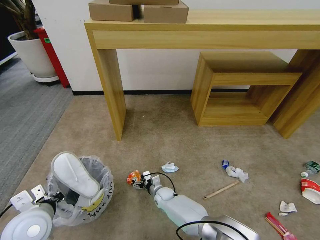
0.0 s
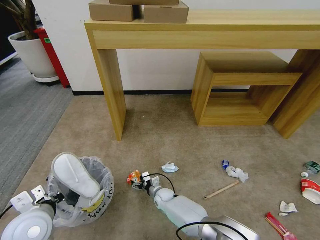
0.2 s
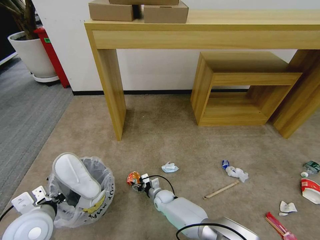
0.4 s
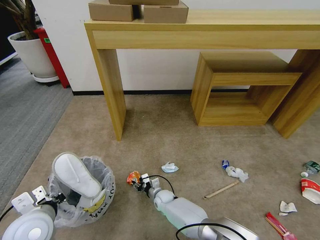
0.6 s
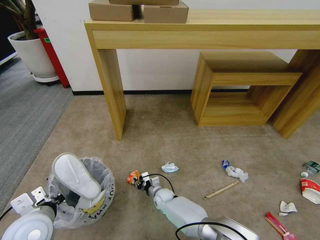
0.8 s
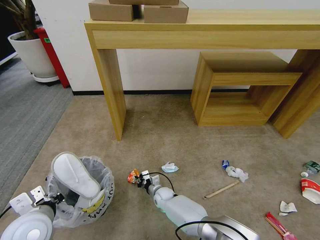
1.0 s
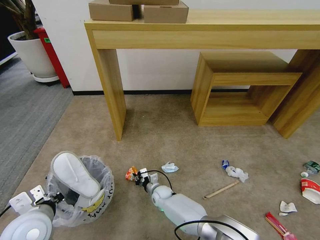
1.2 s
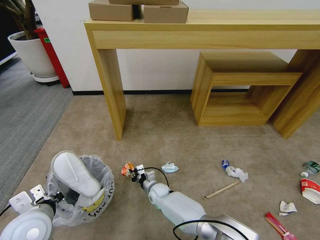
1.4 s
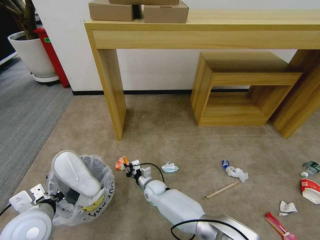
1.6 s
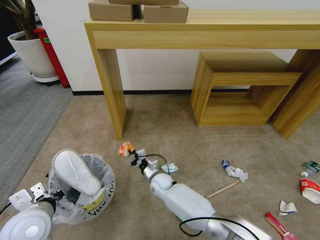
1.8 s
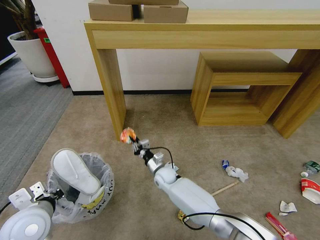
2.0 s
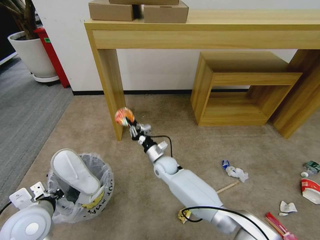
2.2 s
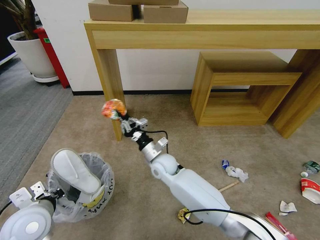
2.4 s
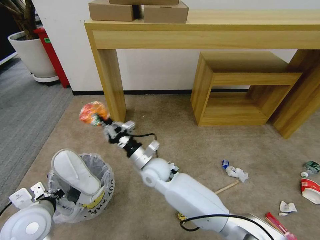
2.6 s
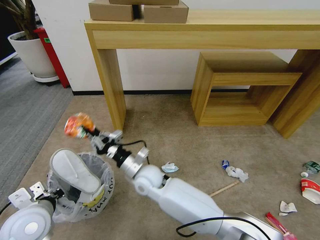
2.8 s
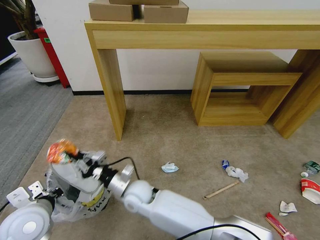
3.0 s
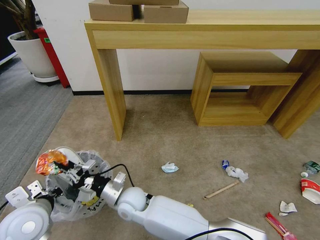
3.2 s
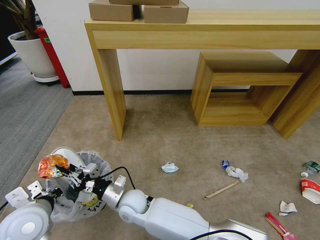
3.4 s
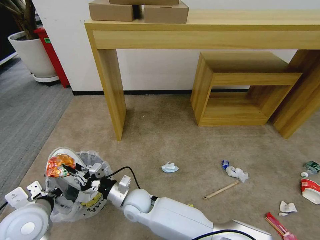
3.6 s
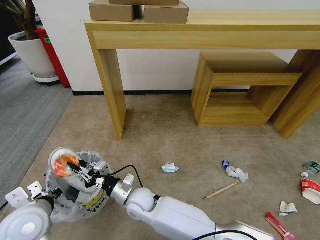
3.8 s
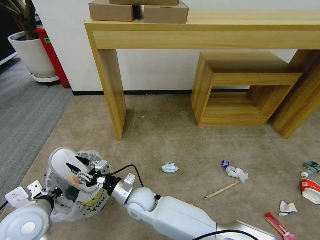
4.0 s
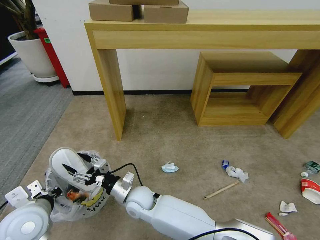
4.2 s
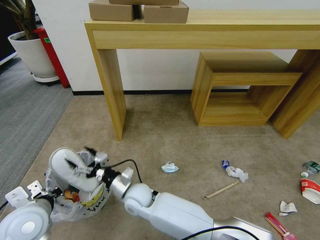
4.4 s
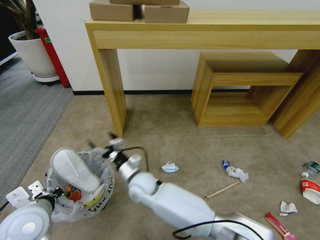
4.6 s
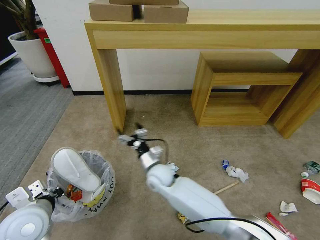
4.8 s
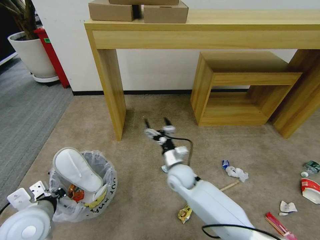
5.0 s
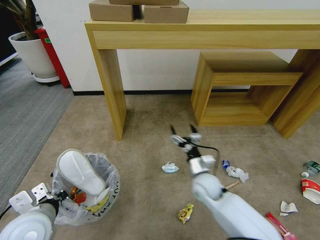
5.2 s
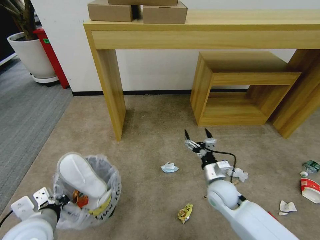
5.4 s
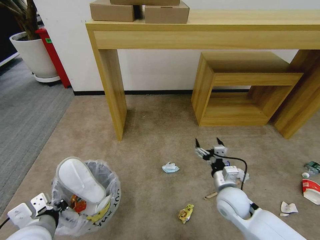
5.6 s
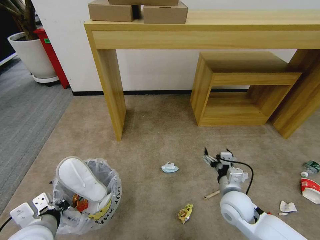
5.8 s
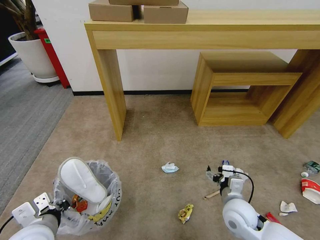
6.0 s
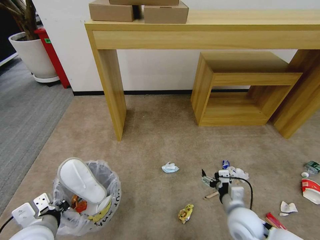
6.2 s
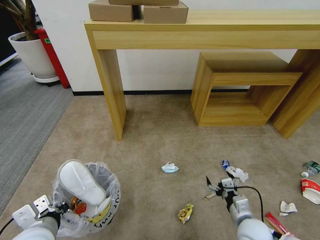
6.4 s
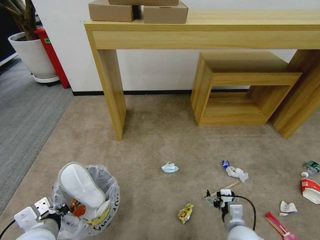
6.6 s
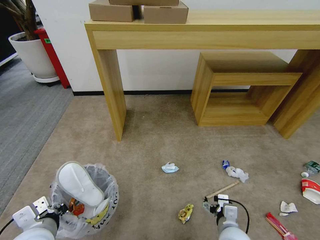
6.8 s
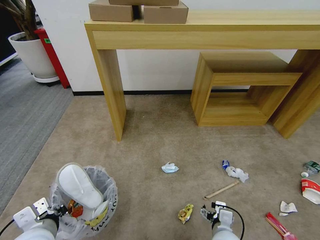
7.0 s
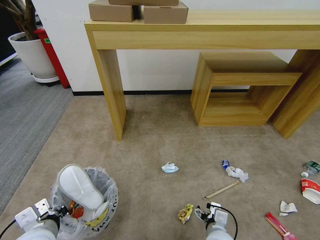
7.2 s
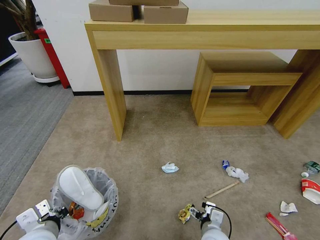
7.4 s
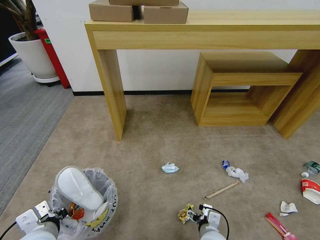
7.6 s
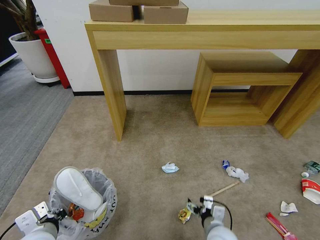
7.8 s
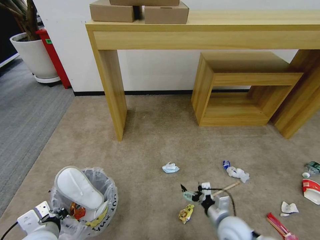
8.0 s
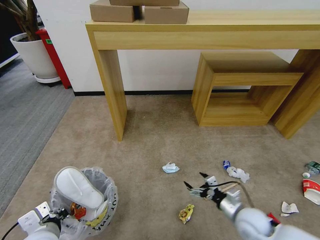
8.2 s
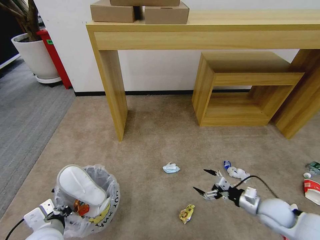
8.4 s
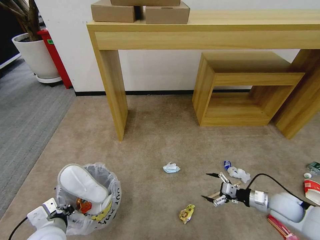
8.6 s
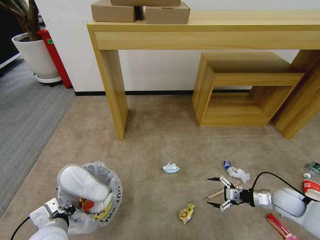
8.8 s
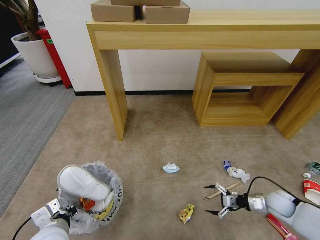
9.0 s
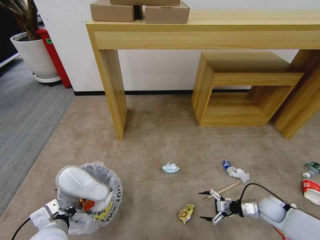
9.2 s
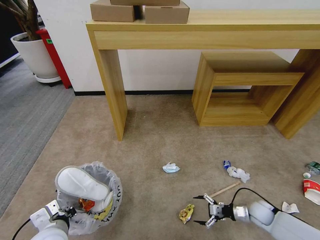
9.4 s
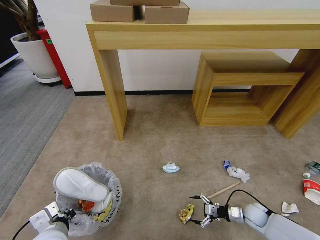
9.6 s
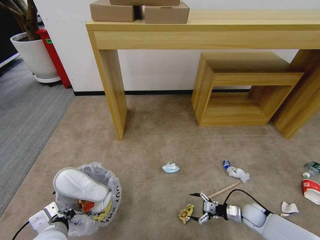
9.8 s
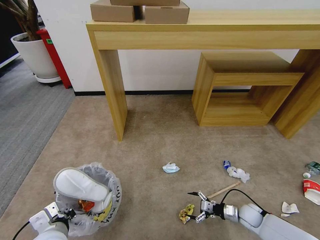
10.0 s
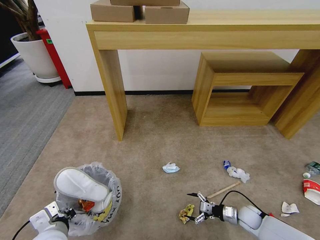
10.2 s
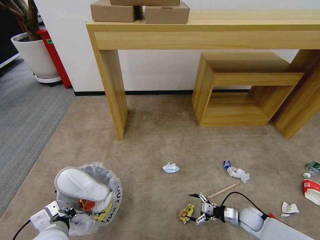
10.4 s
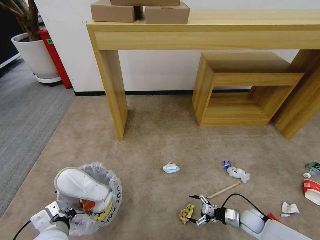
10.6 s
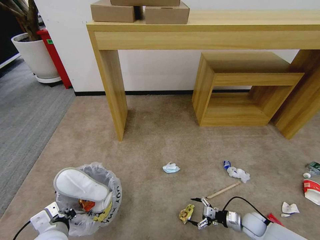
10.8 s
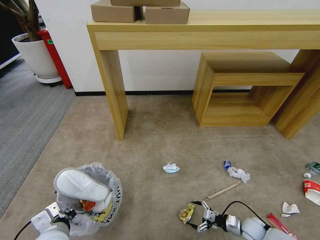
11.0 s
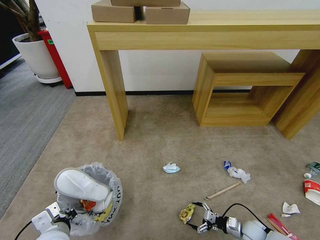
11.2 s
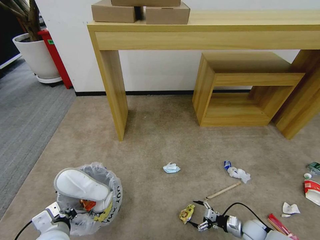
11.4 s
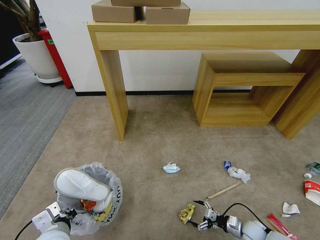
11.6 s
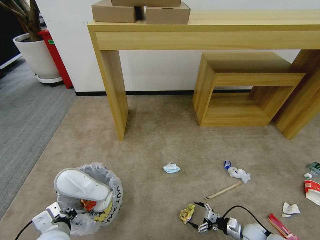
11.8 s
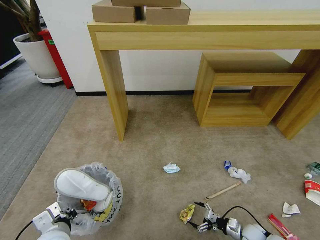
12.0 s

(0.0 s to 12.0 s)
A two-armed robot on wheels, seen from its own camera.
Task of the whole recording: Pick up the trash bin and place the garbage on the floor into it.
0.0 s - 1.6 s: The right gripper moves upward, roughly 5 cm, and closes its fingers.
1.6 s - 3.0 s: The right gripper moves upward and backward, about 15 cm.
3.0 s - 4.4 s: The right gripper opens.
4.4 s - 6.0 s: The right gripper is displaced to the right by some 30 cm, while the left gripper changes place by approximately 5 cm.
6.0 s - 7.6 s: The right gripper is displaced downward, backward and to the left by some 15 cm.
7.6 s - 9.0 s: The right gripper goes about 30 cm to the right and forward.
9.0 s - 10.4 s: The right gripper is displaced downward and to the left by approximately 15 cm.
10.4 s - 12.0 s: The right gripper shifts roughly 5 cm backward.

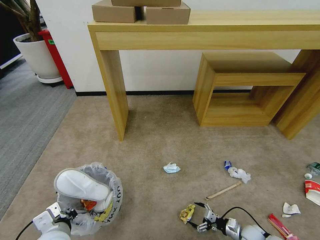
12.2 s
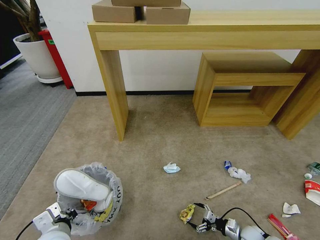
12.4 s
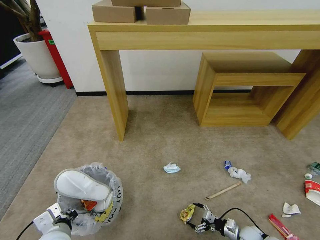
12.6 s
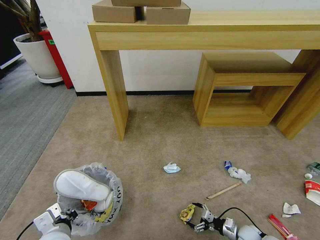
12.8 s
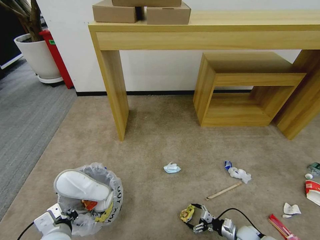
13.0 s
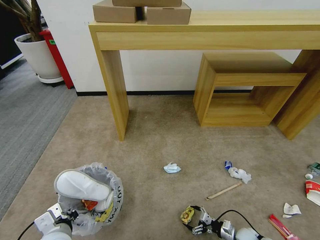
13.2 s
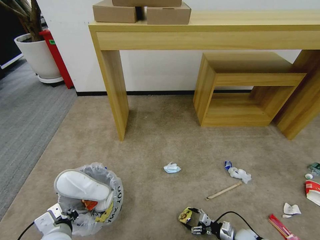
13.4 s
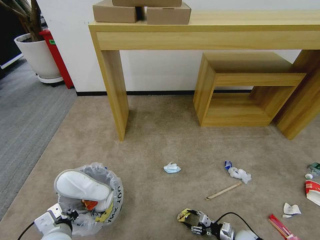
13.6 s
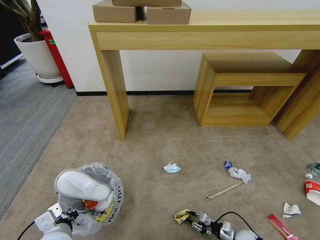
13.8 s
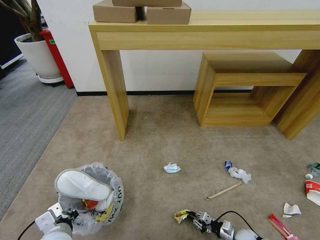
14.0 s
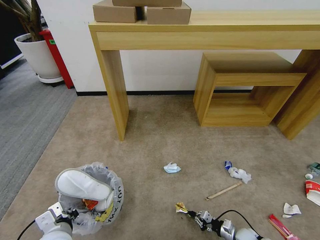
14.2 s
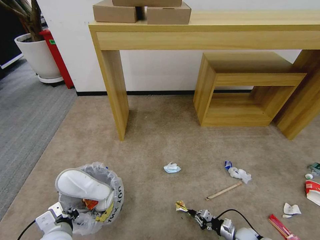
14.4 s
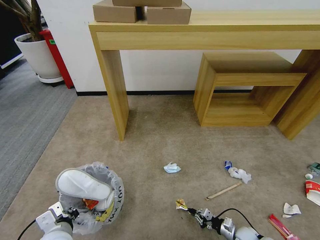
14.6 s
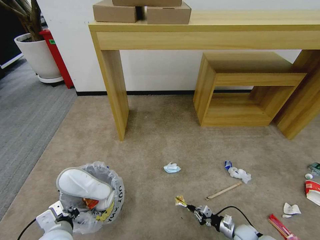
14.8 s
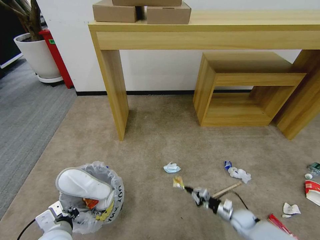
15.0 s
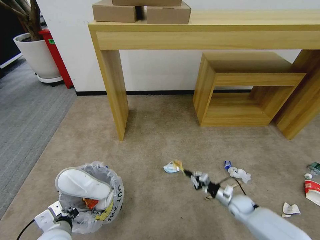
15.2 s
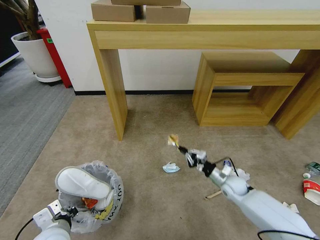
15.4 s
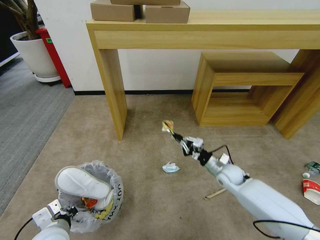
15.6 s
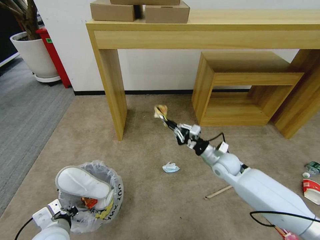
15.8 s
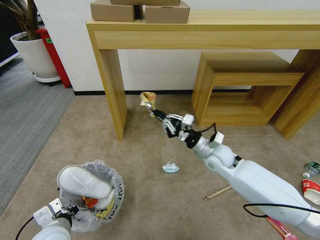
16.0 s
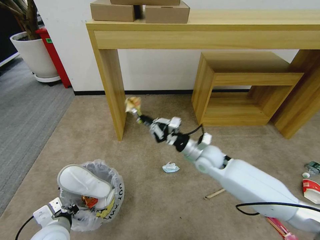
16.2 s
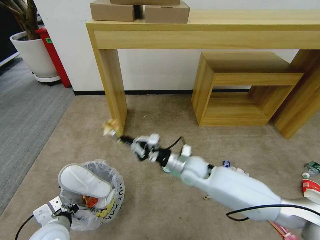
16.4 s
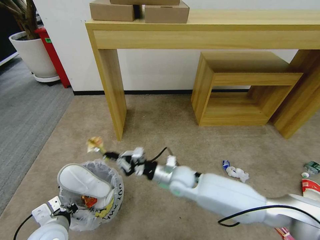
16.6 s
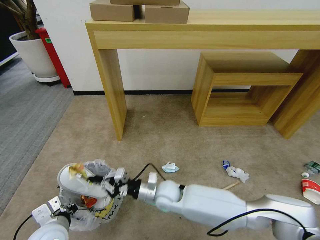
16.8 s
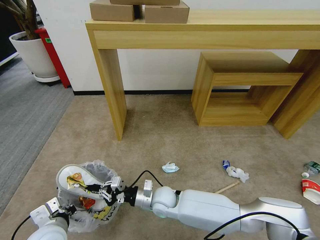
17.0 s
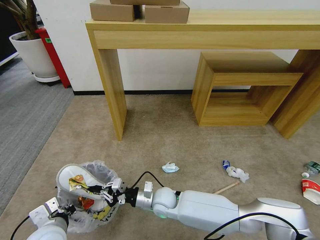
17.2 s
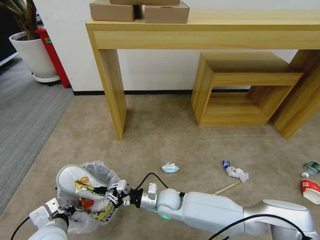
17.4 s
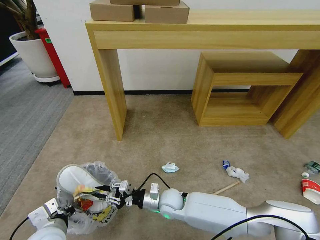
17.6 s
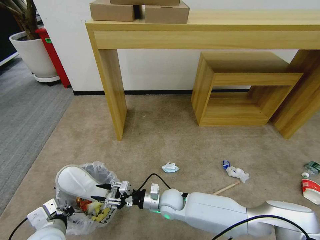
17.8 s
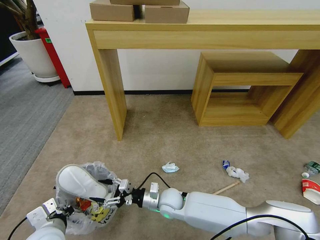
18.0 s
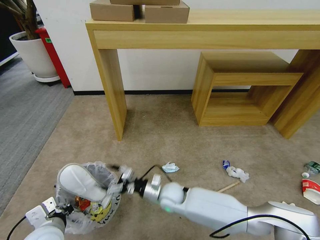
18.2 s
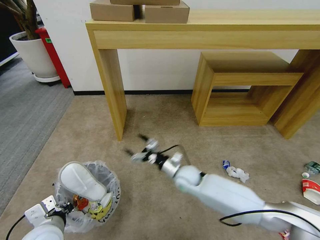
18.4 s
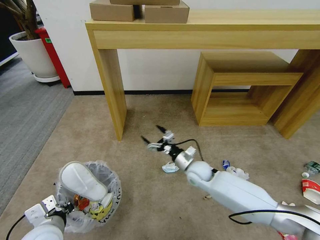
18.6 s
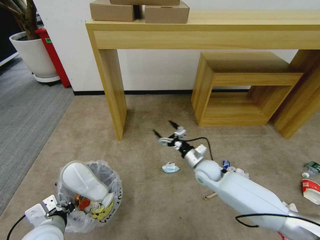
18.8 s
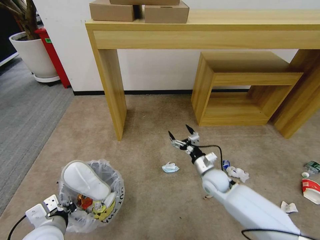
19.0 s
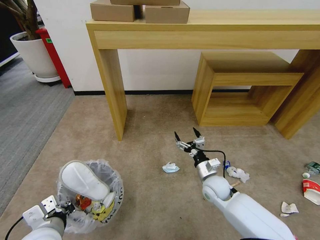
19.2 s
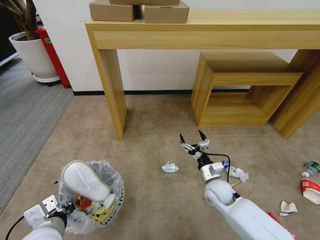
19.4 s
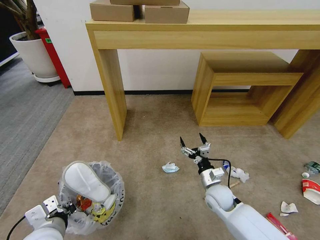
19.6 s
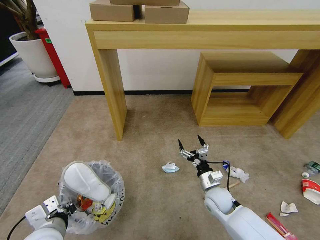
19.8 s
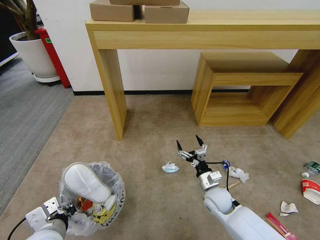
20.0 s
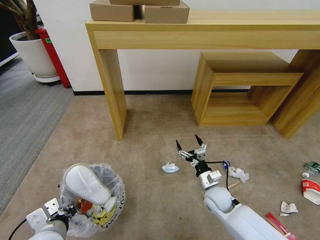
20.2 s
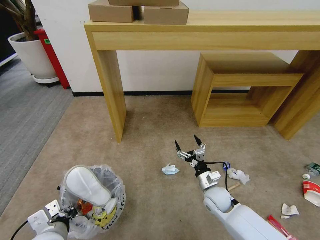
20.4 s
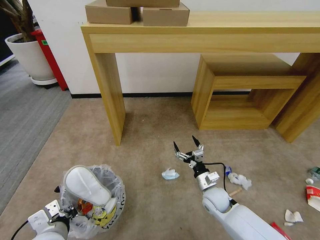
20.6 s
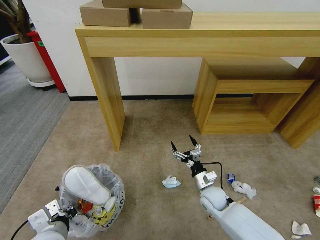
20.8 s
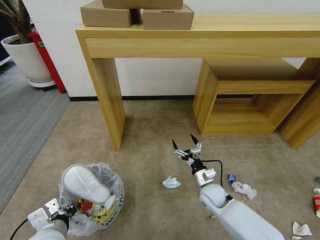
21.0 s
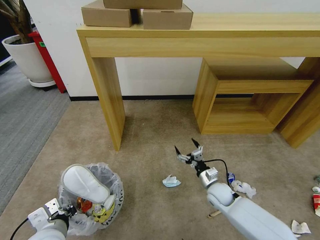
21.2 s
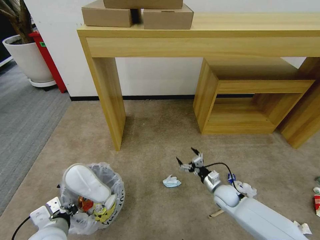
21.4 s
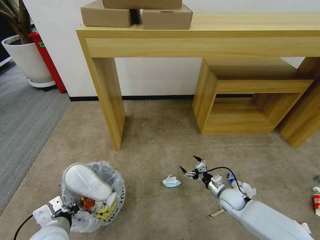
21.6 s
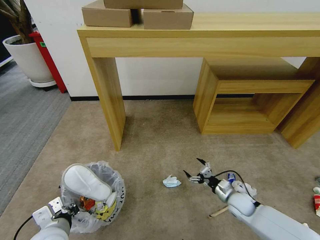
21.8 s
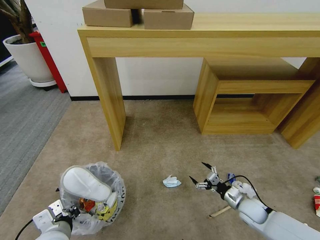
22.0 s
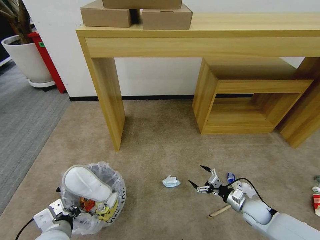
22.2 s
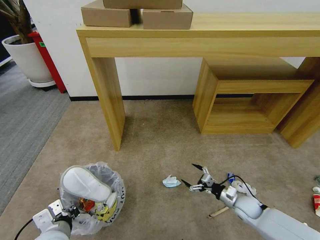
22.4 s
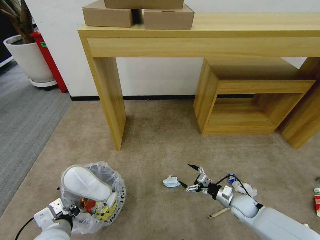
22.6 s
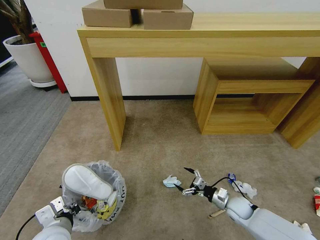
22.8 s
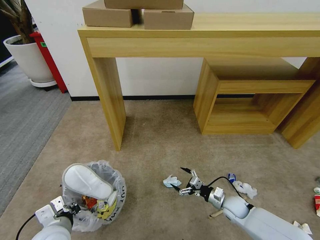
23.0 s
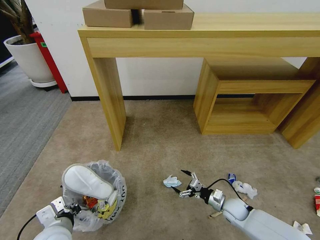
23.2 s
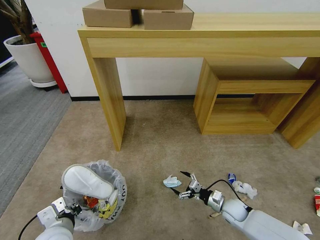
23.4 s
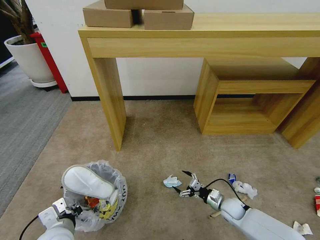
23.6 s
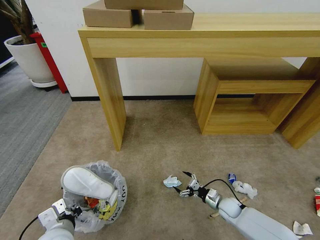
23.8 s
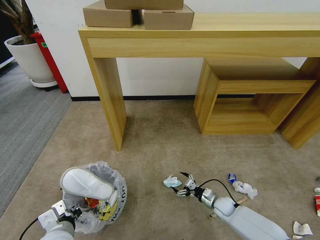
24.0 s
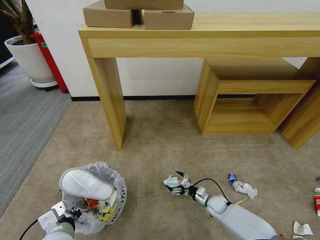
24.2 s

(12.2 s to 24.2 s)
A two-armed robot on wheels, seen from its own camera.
Task of the whole recording: Pick up the trash bin and place the garbage on the floor into it.
12.2 s - 13.8 s: The right gripper closes.
13.8 s - 15.2 s: The right gripper shifts some 15 cm forward and upward.
15.2 s - 16.6 s: The right gripper goes roughly 30 cm to the left and upward.
16.6 s - 18.2 s: The right gripper shifts about 10 cm downward, and opens up.
18.2 s - 19.8 s: The right gripper heads to the right, covering roughly 15 cm.
19.8 s - 21.2 s: The right gripper ends up roughly 5 cm from where it was.
21.2 s - 22.6 s: The right gripper moves to the right, approximately 10 cm.
22.6 s - 24.2 s: The right gripper is displaced downward and to the left by roughly 10 cm.
